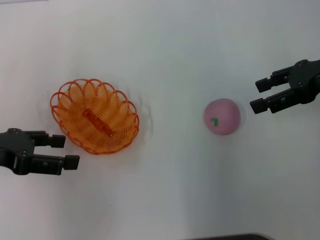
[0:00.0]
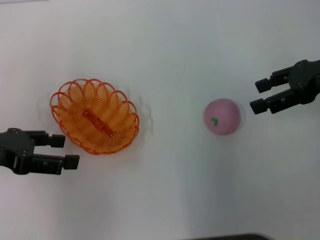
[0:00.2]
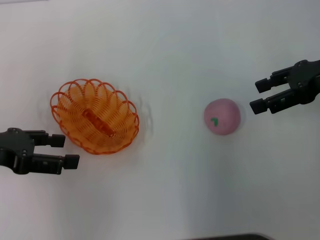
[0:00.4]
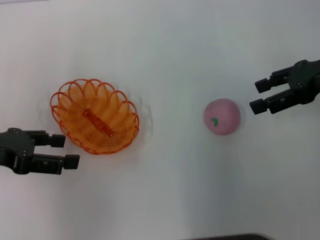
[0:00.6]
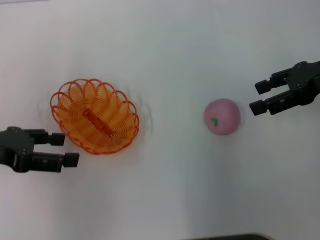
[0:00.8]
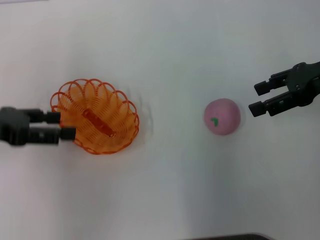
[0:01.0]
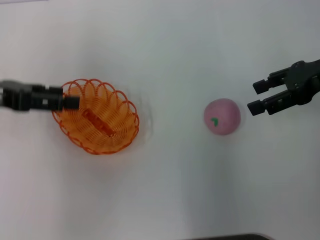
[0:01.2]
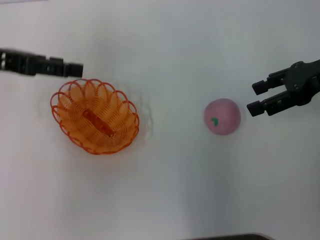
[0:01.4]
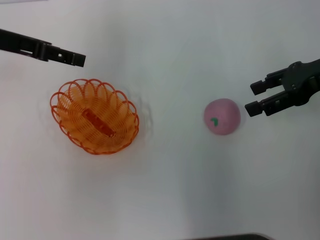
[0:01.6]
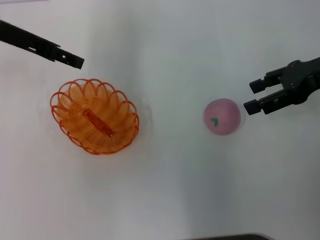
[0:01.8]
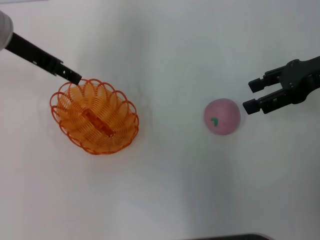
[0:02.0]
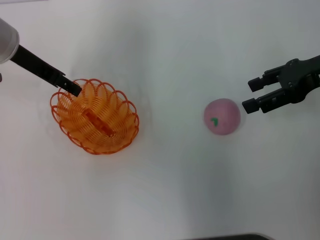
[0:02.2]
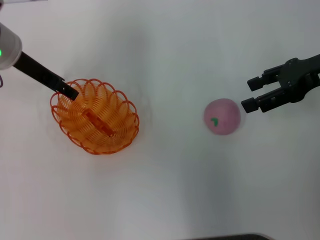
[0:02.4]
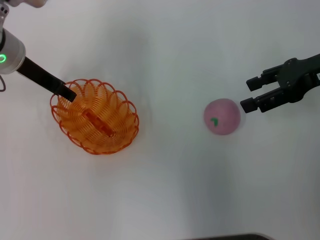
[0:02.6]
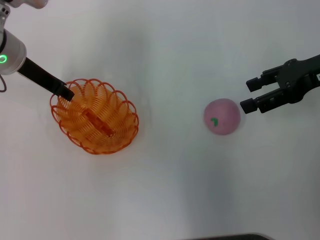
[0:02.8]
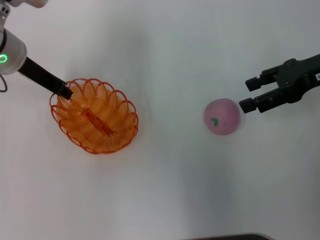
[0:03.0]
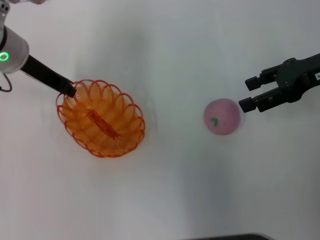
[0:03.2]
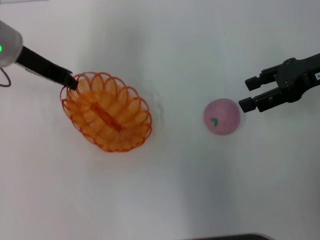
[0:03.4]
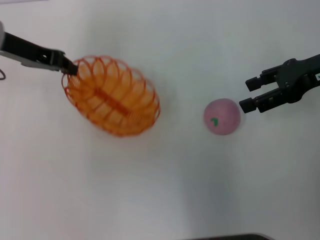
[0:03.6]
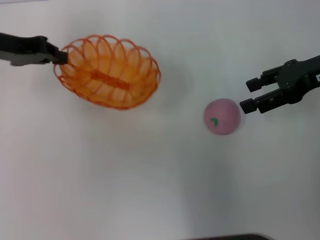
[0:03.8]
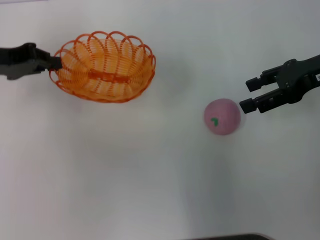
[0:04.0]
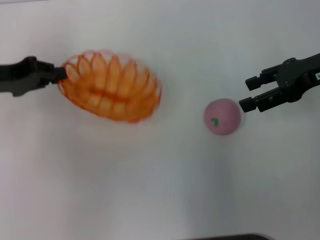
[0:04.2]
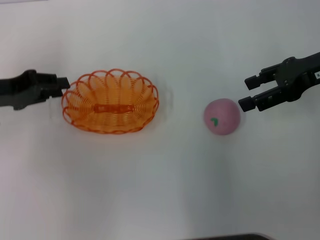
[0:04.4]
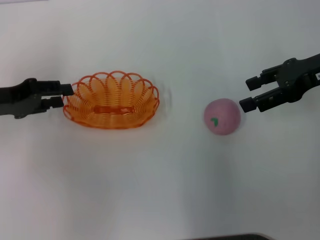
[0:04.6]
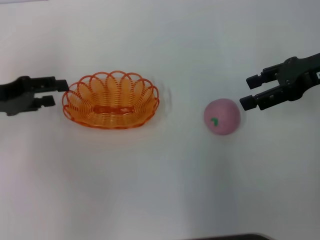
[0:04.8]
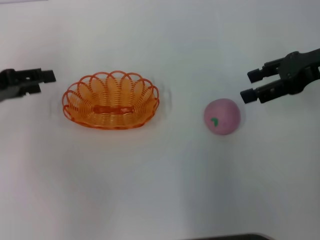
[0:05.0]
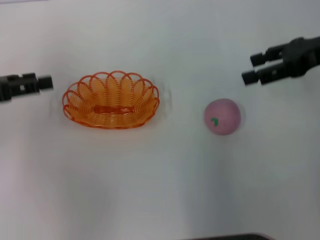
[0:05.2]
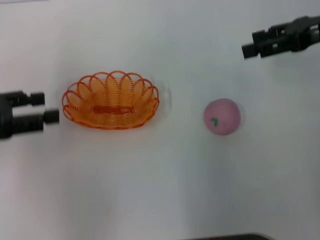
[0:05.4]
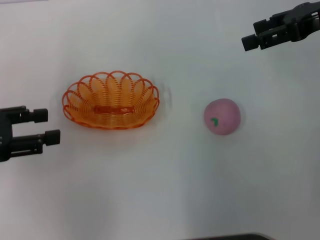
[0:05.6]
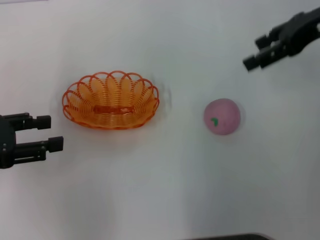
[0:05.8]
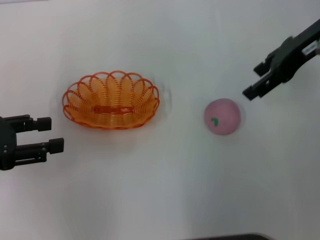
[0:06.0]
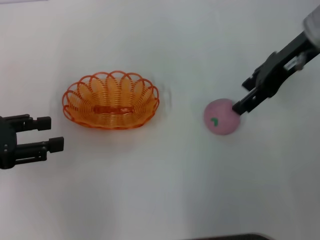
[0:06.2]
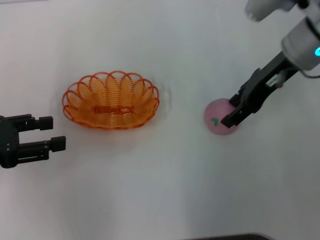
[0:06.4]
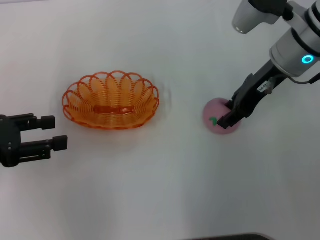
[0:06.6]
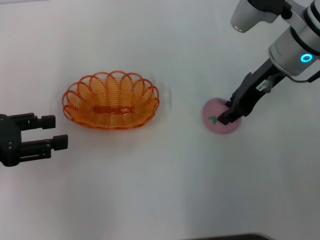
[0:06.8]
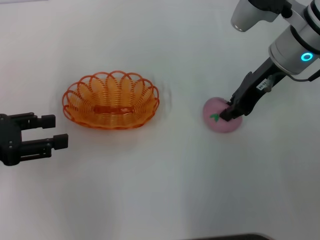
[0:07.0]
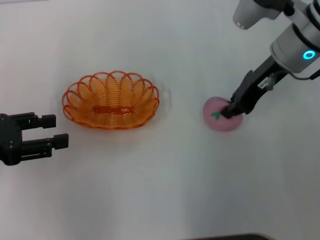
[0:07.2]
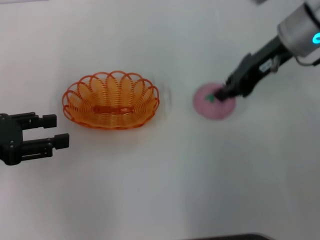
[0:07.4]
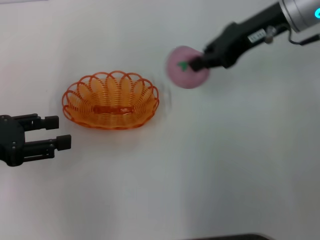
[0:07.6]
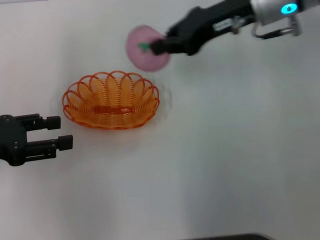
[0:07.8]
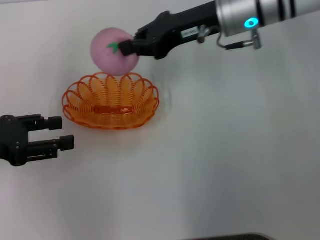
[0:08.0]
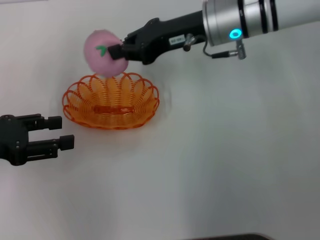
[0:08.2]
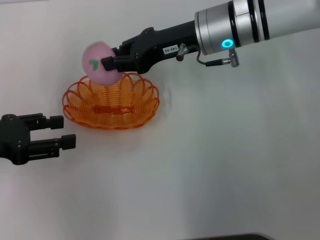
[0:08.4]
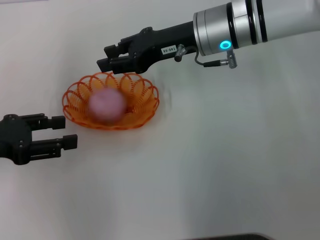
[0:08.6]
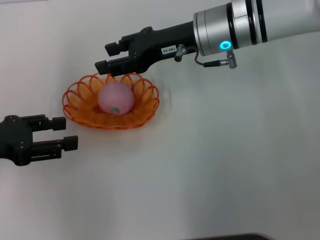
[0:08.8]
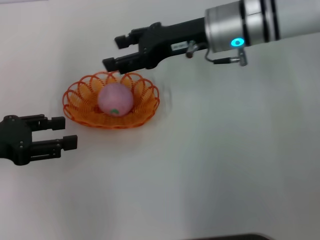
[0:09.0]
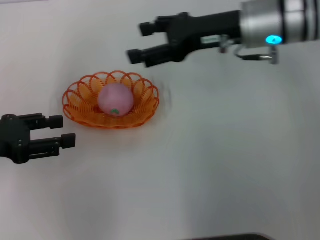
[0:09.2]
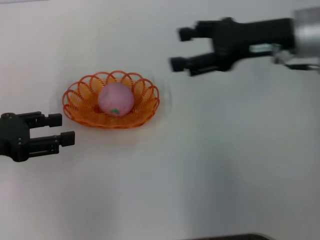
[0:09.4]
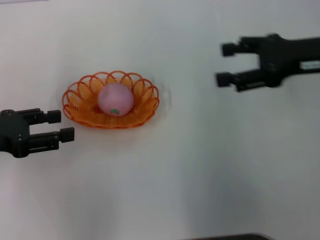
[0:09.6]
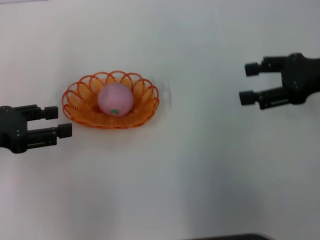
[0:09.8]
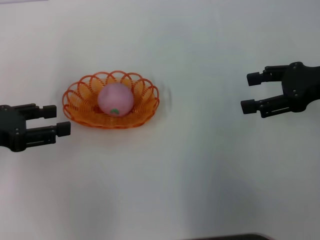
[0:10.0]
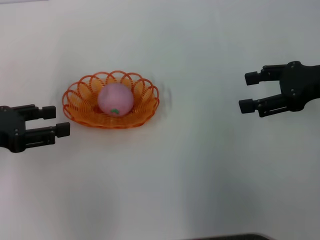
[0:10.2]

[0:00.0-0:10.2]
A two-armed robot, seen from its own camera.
Step, 0:00.0 to 0:03.4: Pick up the basket with the left gripper.
Step, 0:03.6 to 0:04.8: Place the basket in the center of view with the left gripper.
Step, 0:05.0 to 0:07.4: Pick up the peach with the right gripper.
Step, 0:07.6 to 0:09.0: Place the peach into the basket with the right gripper.
0:00.0 to 0:01.4: The left gripper heads forward and upward, covering roughly 10 cm.
0:01.4 to 0:03.0: The left gripper moves to the right, forward and downward, roughly 10 cm, and closes.
0:03.0 to 0:04.4: The left gripper goes approximately 10 cm to the left and backward, and closes up.
0:04.4 to 0:05.8: The left gripper travels backward by about 10 cm, and opens. Meanwhile the right gripper heads upward, covering approximately 5 cm.
0:05.8 to 0:07.2: The right gripper travels to the left and downward by roughly 10 cm, and closes up.
0:07.2 to 0:08.8: The right gripper heads to the left, covering some 10 cm.
0:08.8 to 0:10.2: The right gripper travels to the right and backward by roughly 20 cm, and opens its fingers.
